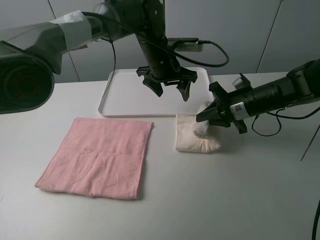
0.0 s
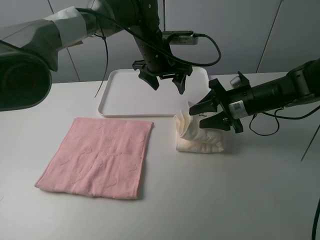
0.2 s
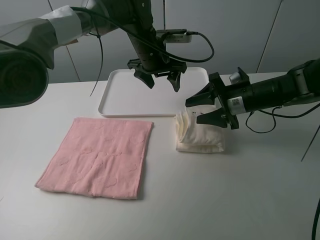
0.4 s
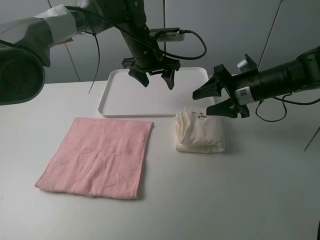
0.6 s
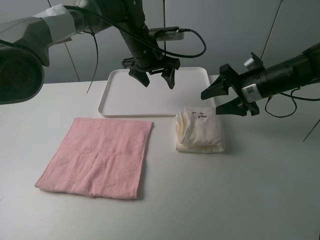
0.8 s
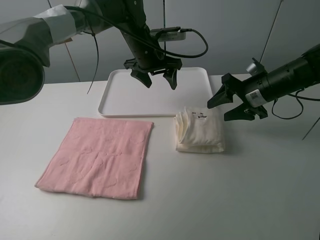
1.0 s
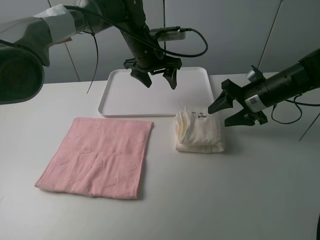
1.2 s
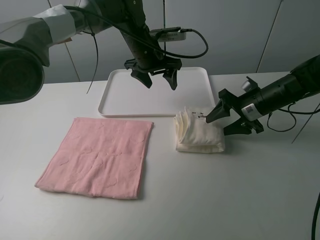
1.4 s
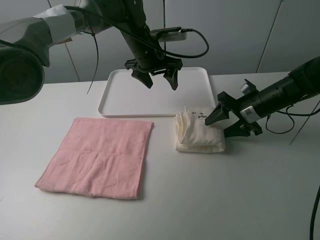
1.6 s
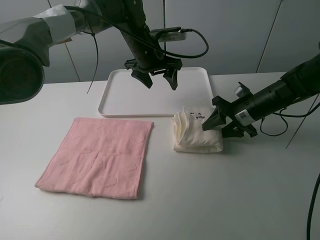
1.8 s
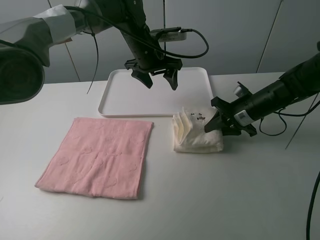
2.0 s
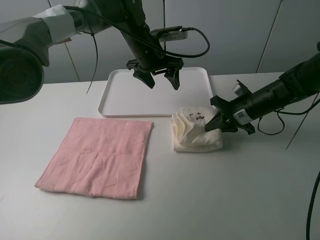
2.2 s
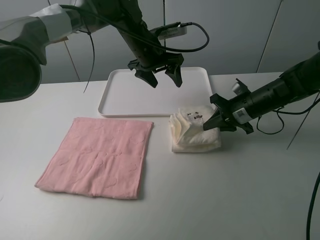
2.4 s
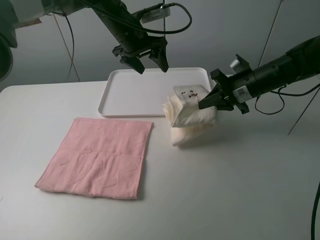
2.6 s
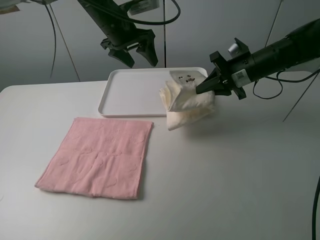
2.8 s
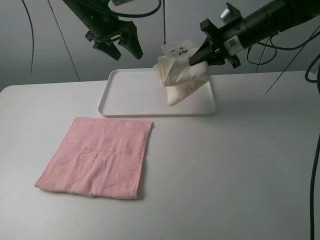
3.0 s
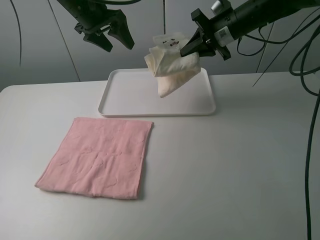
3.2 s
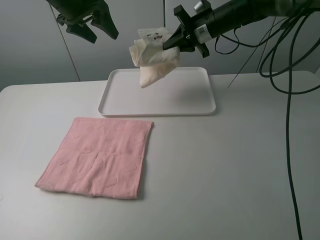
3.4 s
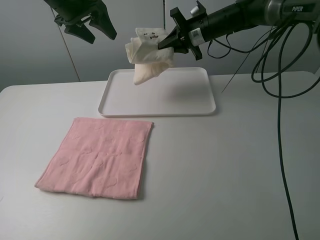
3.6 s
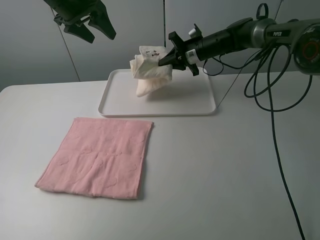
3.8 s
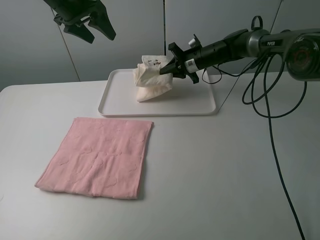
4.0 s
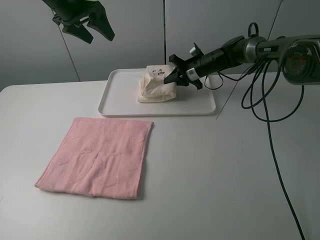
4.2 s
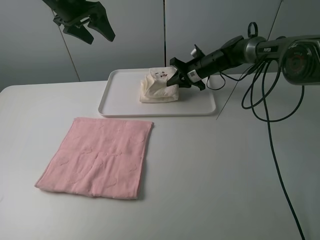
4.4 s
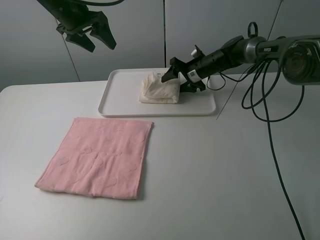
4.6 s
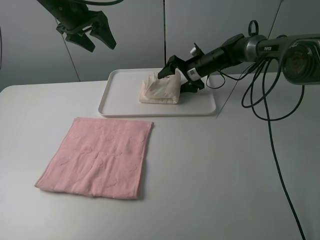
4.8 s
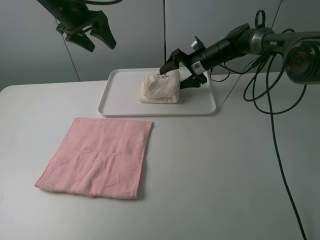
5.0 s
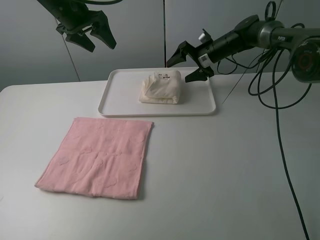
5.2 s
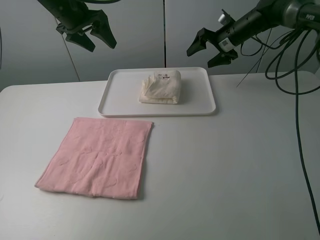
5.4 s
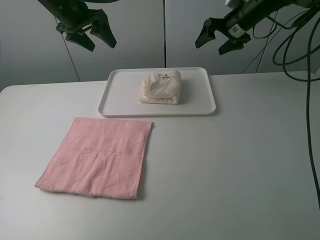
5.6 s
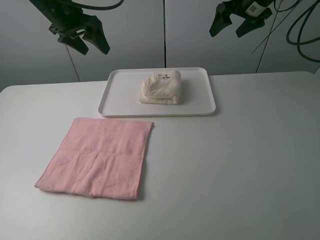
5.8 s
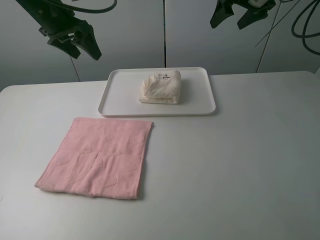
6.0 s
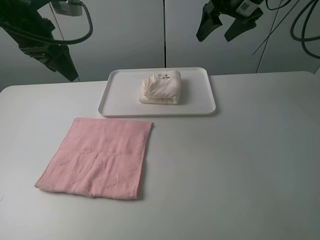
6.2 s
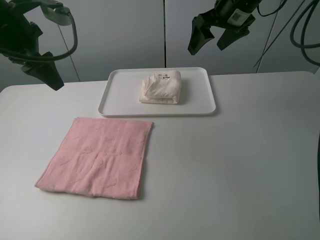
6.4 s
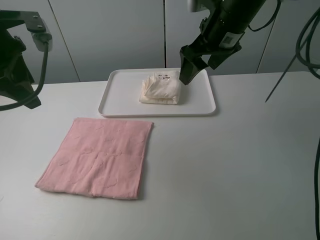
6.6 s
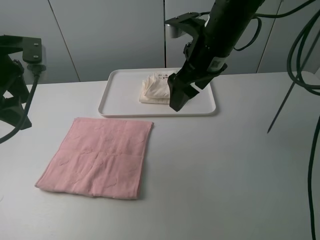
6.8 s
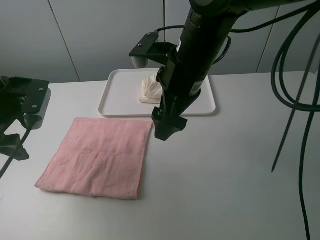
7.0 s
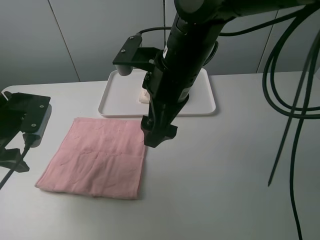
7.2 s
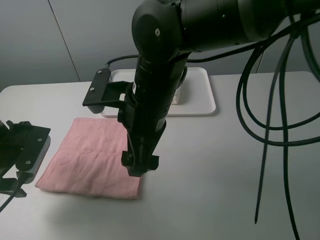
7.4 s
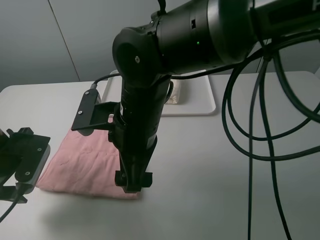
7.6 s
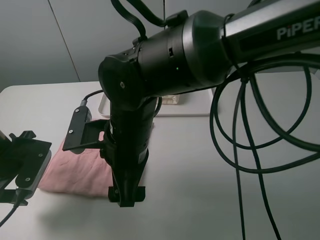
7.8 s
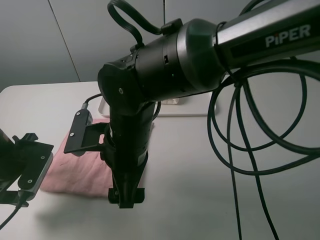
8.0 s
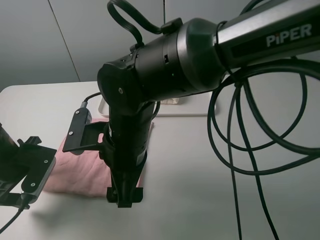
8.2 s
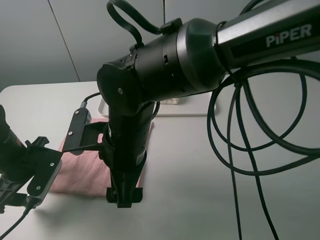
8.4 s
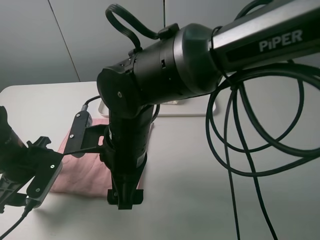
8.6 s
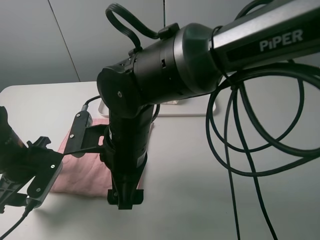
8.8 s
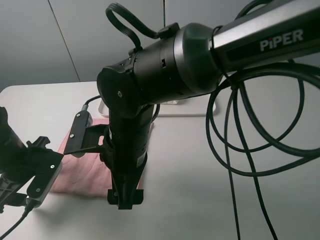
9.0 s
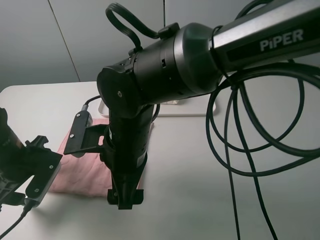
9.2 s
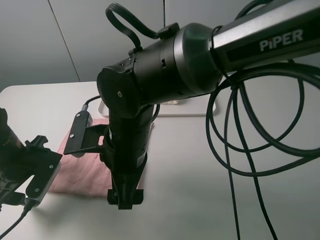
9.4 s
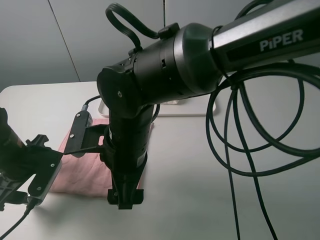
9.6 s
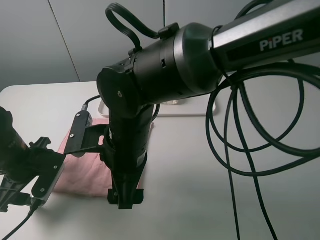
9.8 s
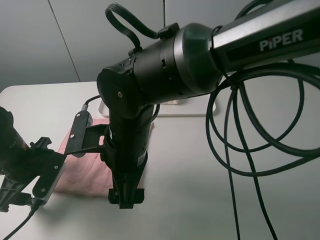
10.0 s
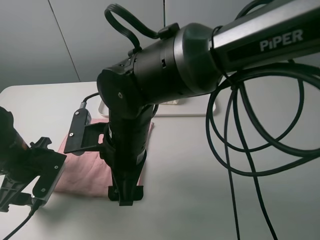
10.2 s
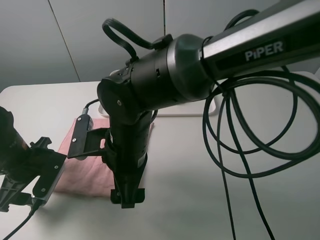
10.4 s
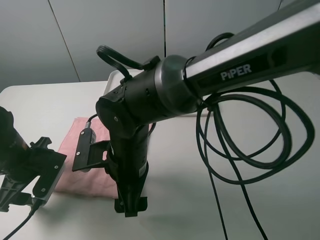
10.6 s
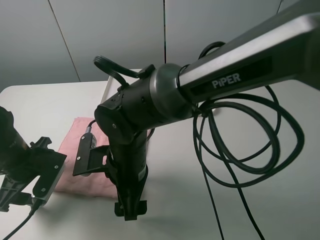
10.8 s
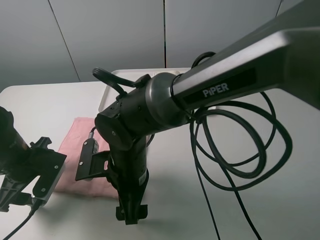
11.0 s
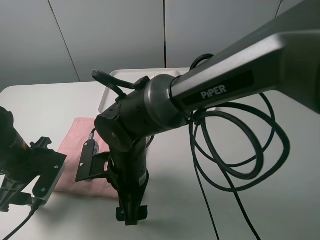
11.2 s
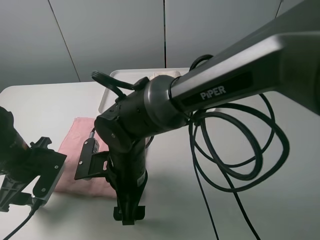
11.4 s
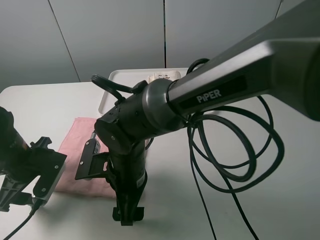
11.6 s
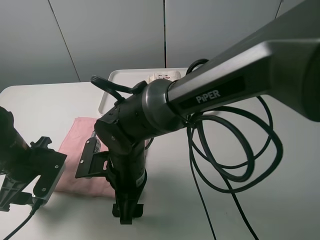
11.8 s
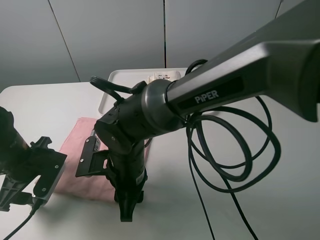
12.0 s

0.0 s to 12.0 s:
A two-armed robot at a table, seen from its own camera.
Task of the whole recording: fold one of the towels by two grippers and place it on the tray,then fold another towel by two grippers and place it on the folded towel.
Step, 0.6 to 2.0 s: Grasp the white towel with the right gripper.
Step, 2.2 to 4.8 s: Move the white towel to the plate with the right gripper.
Step, 5.0 to 9.8 s: Grasp the pink towel with the left gripper.
0.0 to 1.6 s: The right gripper opens up.
1.6 to 3.0 s: The left gripper heads to the left and upward, covering approximately 15 cm. The right gripper goes about 15 cm upward and forward, and closes up.
3.0 to 4.4 s: The right gripper travels downward and forward by about 15 cm, while the left gripper shifts about 5 cm to the left.
4.4 to 6.0 s: The left gripper changes place by roughly 5 cm, while the right gripper is displaced upward and to the right by approximately 25 cm, and opens.
6.0 to 7.6 s: The right gripper is displaced backward and to the left by about 40 cm. Meanwhile the left gripper shifts approximately 25 cm backward and downward.
10.4 to 12.0 s: The right gripper goes approximately 5 cm downward, and closes its fingers.

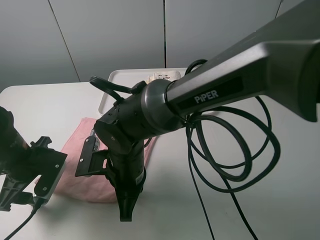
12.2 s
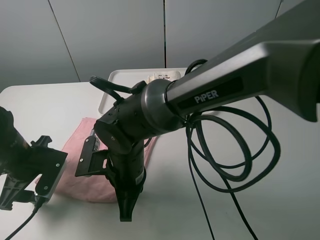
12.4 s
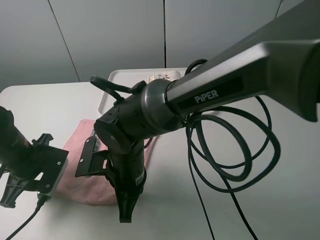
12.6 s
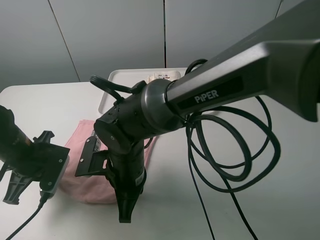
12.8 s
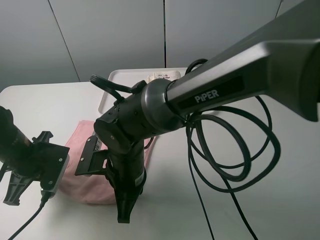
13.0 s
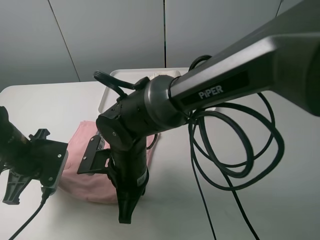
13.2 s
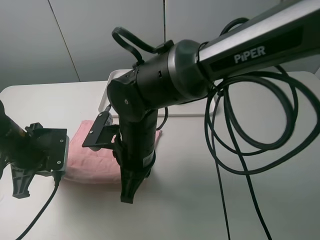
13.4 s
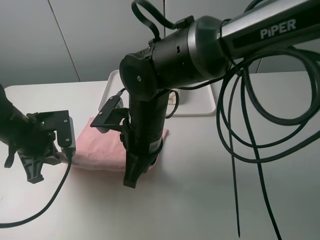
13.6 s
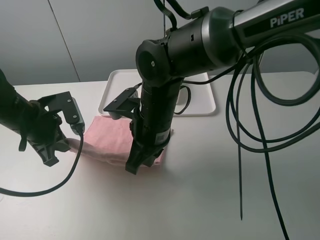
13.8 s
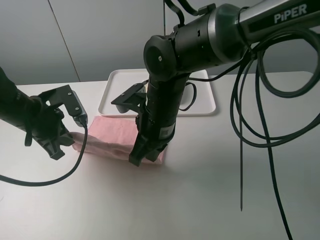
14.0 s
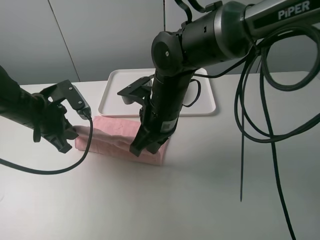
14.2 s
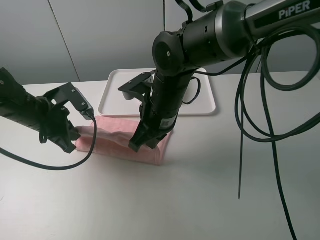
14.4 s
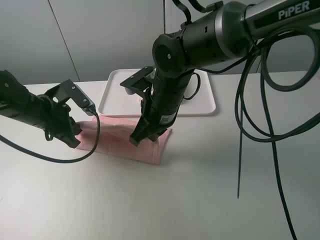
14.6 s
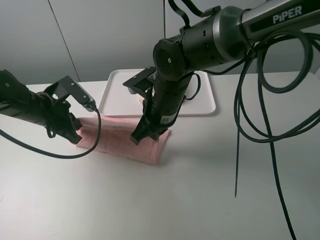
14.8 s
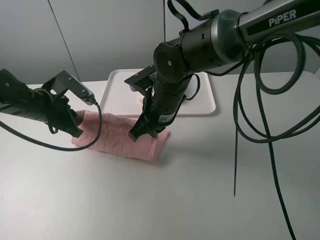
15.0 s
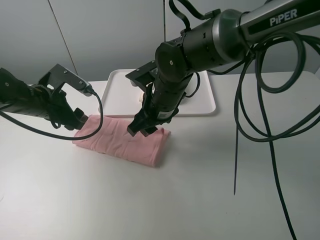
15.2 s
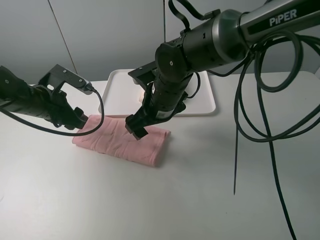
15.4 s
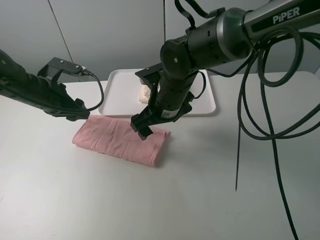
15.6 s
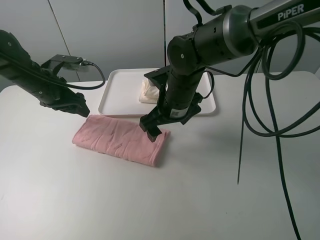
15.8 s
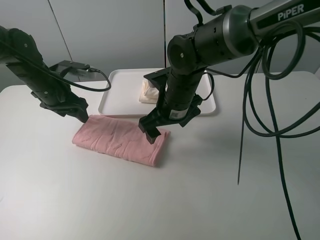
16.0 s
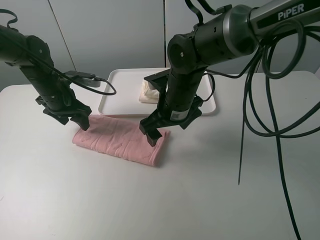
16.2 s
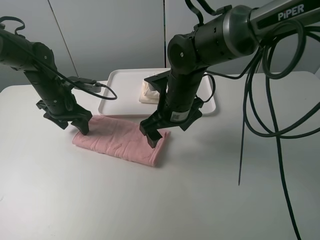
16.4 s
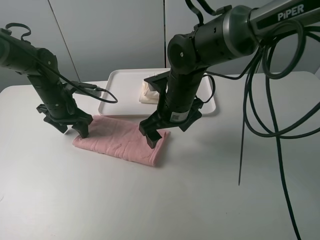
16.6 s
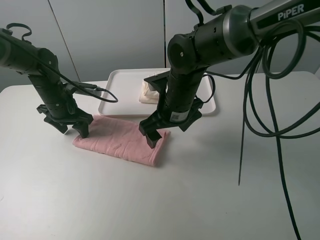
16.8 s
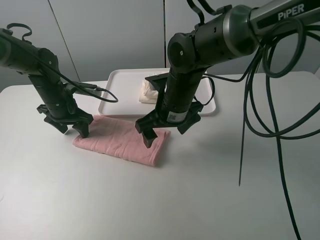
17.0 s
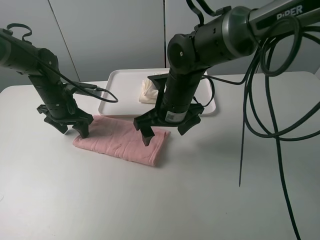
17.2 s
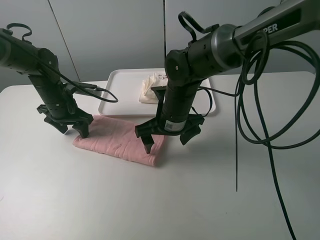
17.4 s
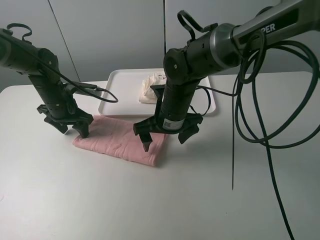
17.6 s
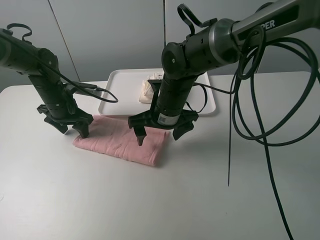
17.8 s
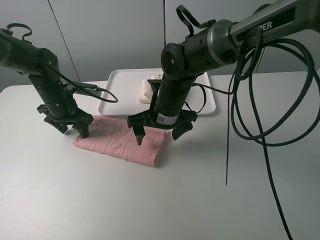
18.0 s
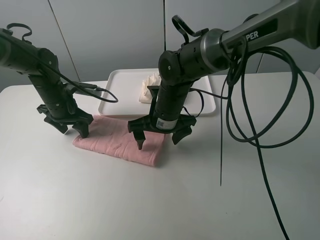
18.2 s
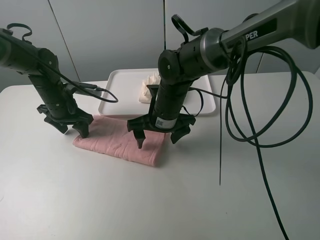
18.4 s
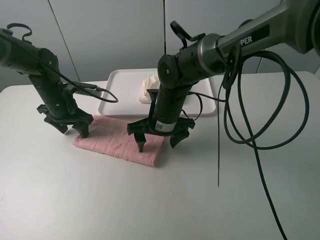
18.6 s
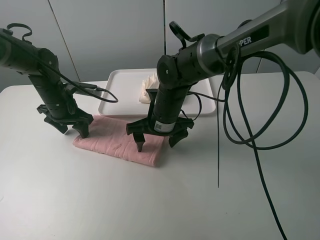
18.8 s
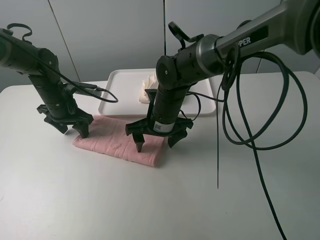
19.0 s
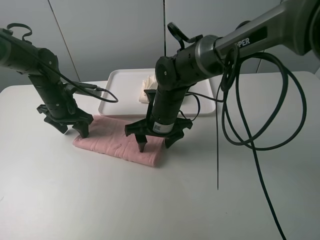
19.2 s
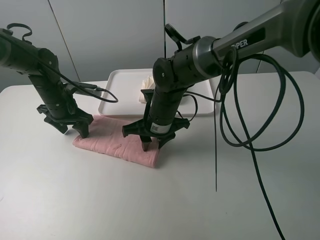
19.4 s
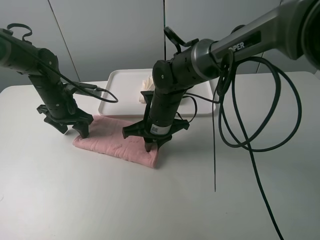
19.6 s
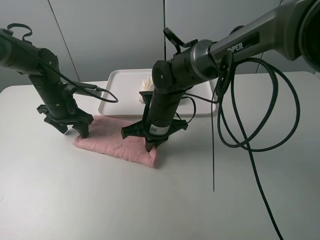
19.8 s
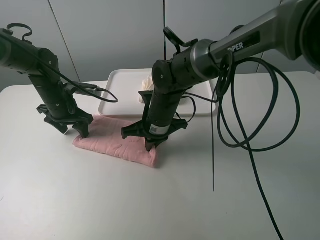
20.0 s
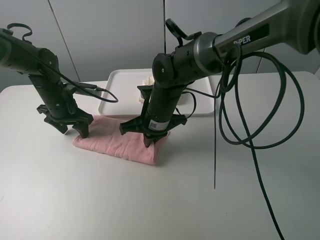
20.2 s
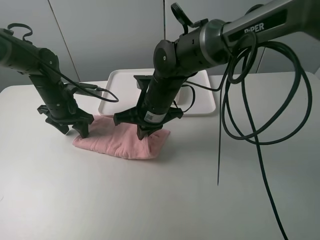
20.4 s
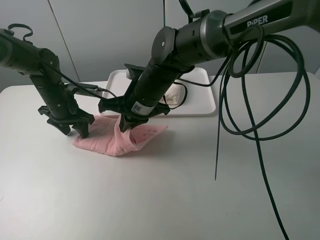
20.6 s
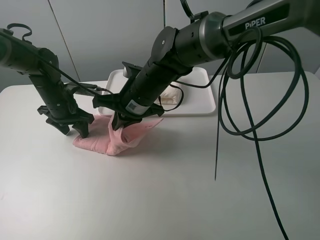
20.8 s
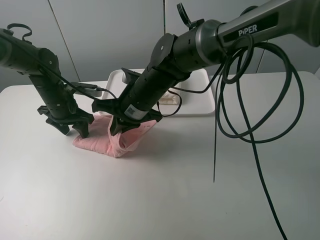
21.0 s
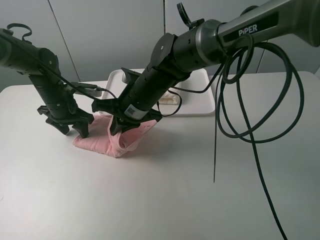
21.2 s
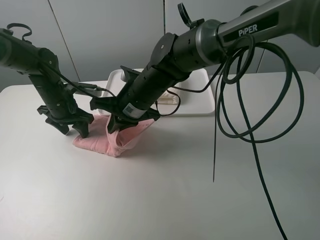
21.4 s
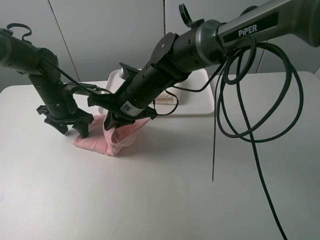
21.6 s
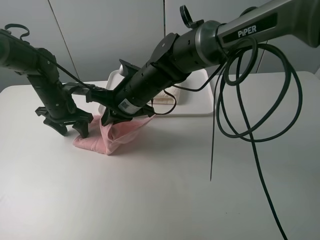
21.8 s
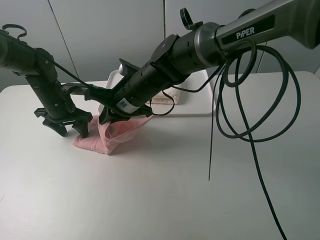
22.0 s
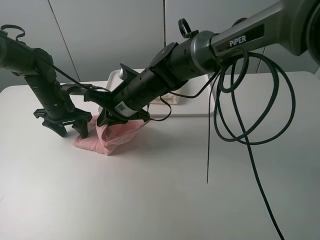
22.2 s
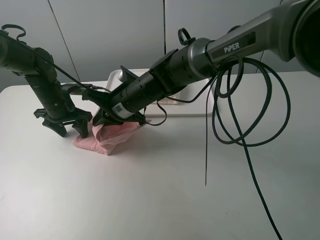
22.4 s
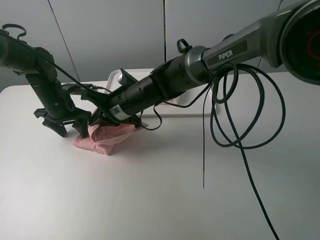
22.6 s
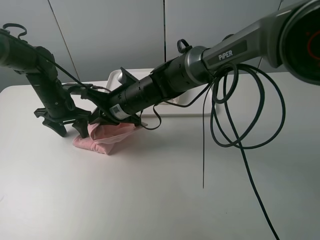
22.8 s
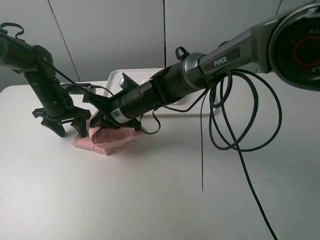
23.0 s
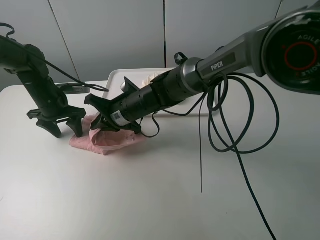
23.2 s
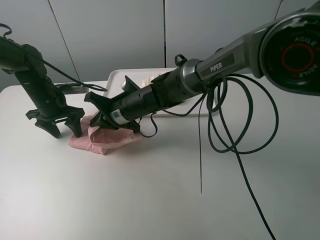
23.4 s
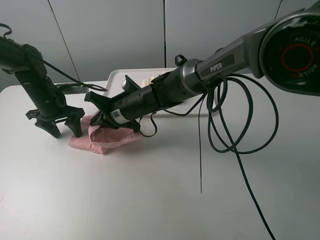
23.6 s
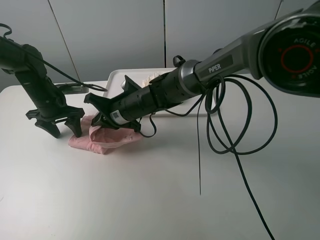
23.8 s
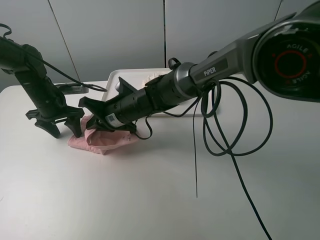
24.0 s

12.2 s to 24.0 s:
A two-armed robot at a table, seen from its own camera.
Task of the whole recording: fold one of the towels by two grippers and place it on the tray,then fold another towel by two grippers and place it on the folded towel.
Step, 12.2 to 15.2 s: Fold the pink towel upwards with the left gripper.
Step, 15.6 to 16.6 s: Press the pink towel with the left gripper.
Step, 16.8 to 19.6 s: Grasp the pink towel with the right gripper.
12.2 to 13.6 s: The left gripper moves some 5 cm, and closes. The right gripper goes roughly 5 cm upward.
13.6 to 15.2 s: The two grippers go roughly 5 cm forward. The right gripper opens its fingers. The left gripper opens.
15.2 to 16.6 s: The left gripper travels forward by approximately 5 cm.
18.2 to 19.6 s: The right gripper closes.
19.6 to 21.0 s: The right gripper heads upward, covering about 5 cm.
